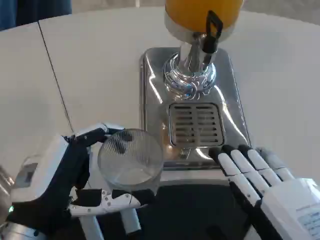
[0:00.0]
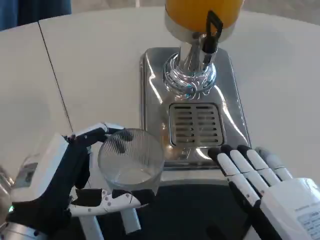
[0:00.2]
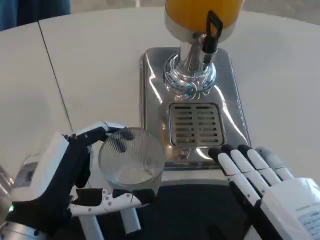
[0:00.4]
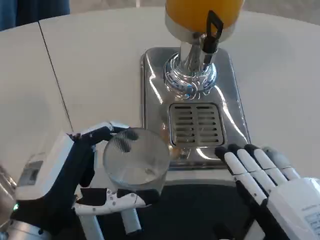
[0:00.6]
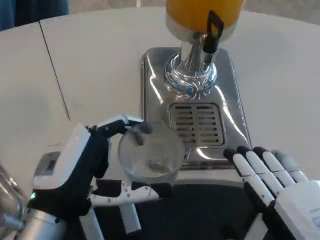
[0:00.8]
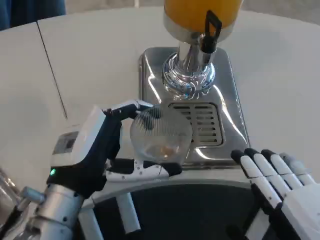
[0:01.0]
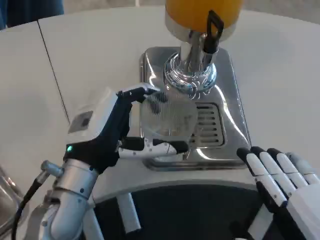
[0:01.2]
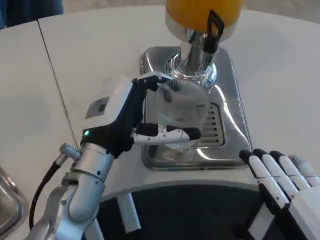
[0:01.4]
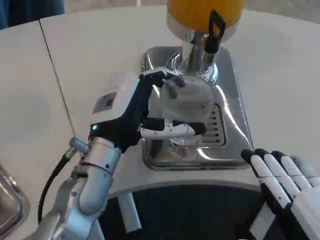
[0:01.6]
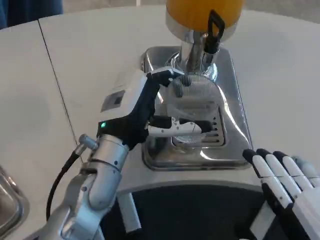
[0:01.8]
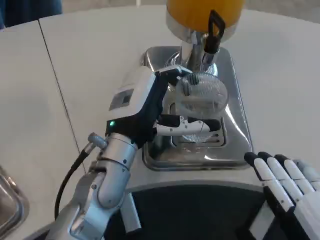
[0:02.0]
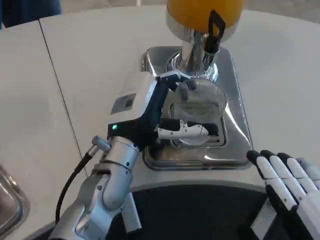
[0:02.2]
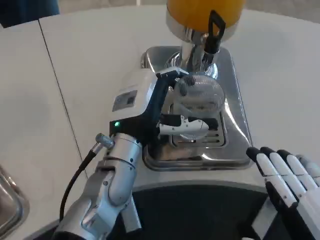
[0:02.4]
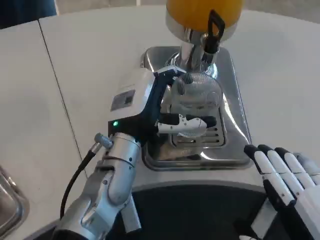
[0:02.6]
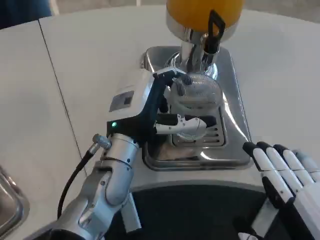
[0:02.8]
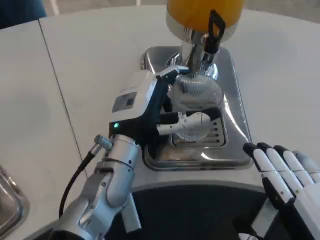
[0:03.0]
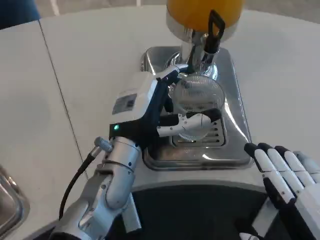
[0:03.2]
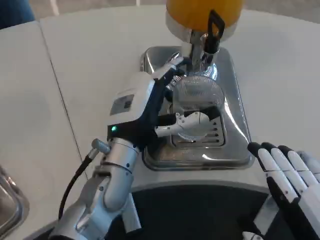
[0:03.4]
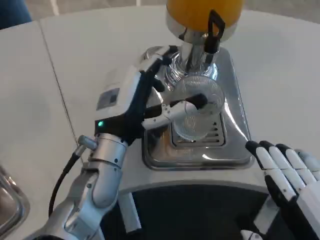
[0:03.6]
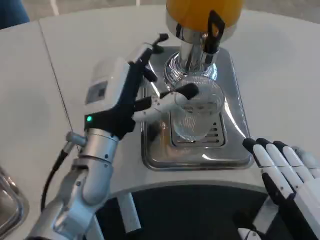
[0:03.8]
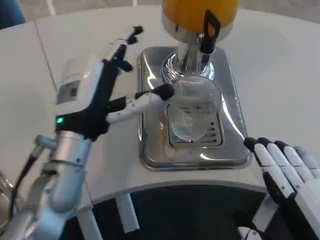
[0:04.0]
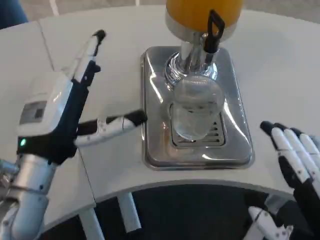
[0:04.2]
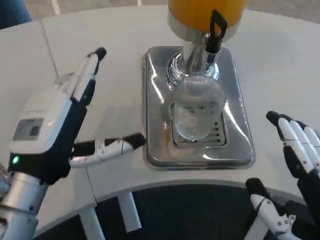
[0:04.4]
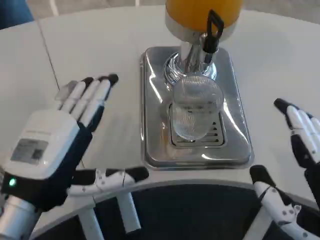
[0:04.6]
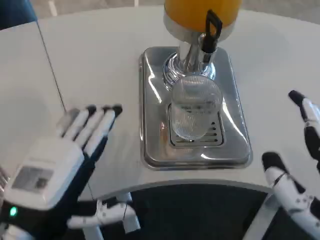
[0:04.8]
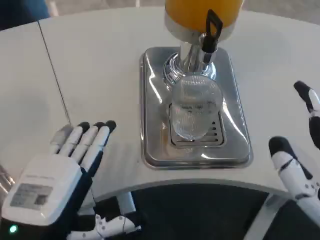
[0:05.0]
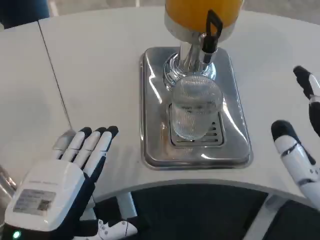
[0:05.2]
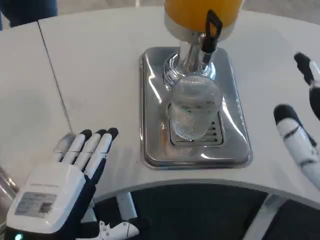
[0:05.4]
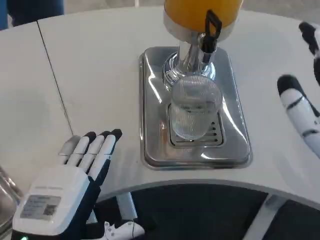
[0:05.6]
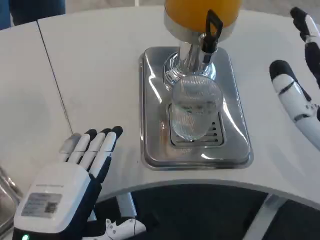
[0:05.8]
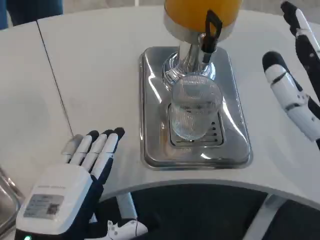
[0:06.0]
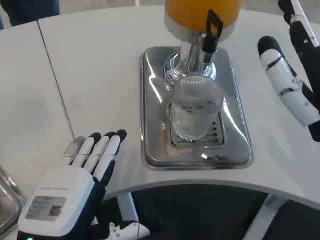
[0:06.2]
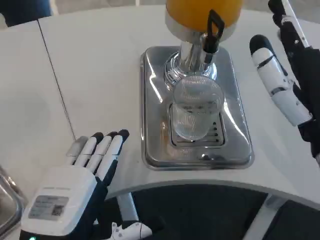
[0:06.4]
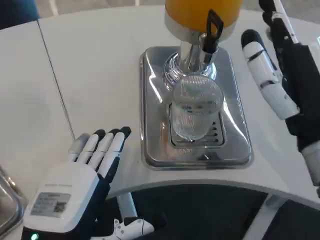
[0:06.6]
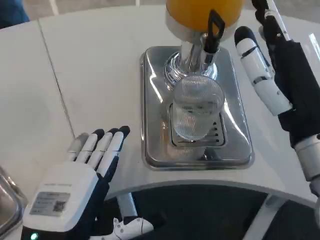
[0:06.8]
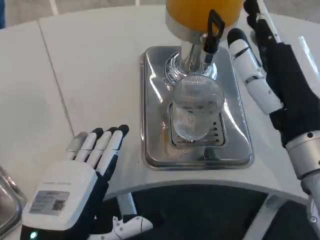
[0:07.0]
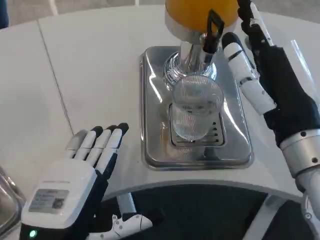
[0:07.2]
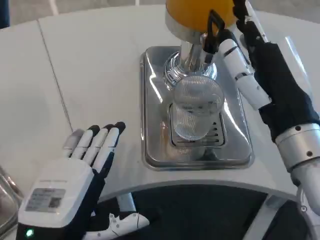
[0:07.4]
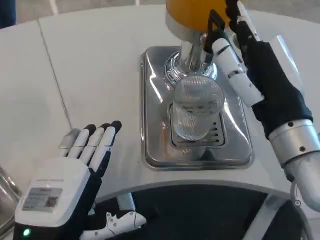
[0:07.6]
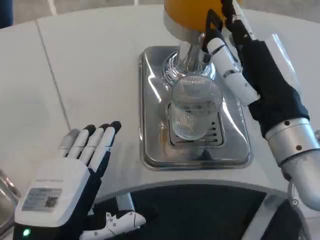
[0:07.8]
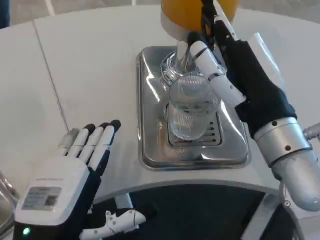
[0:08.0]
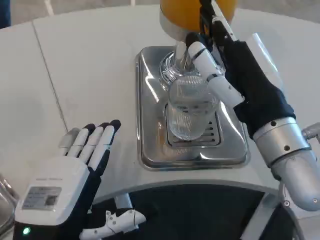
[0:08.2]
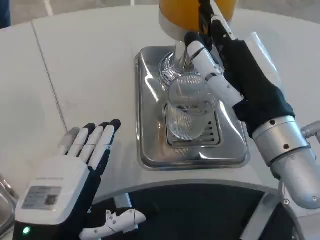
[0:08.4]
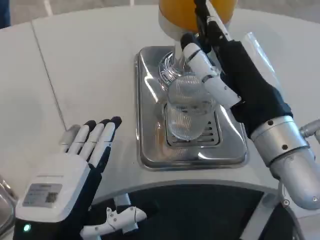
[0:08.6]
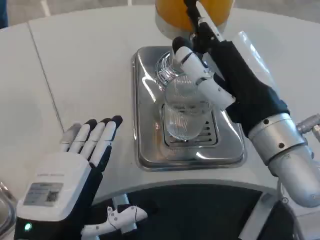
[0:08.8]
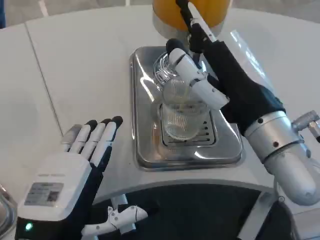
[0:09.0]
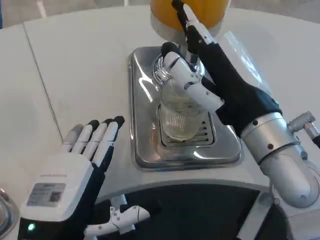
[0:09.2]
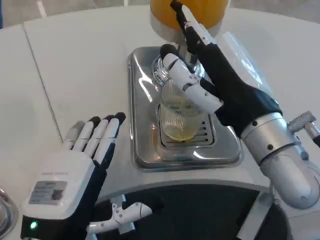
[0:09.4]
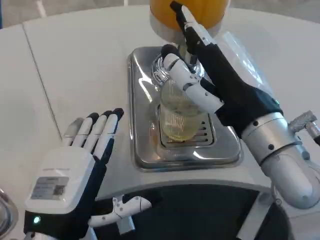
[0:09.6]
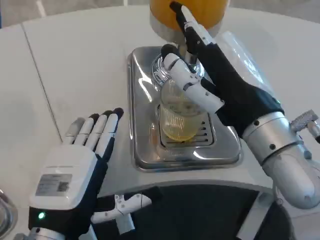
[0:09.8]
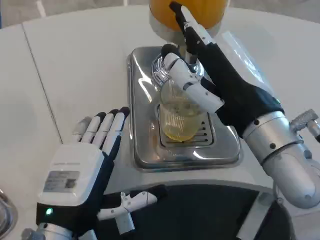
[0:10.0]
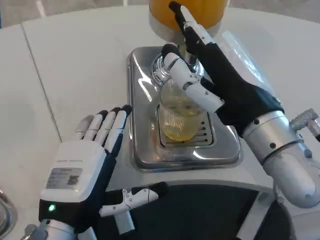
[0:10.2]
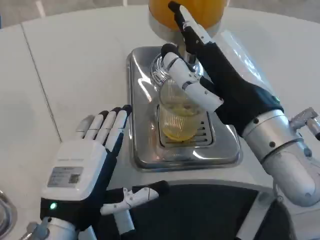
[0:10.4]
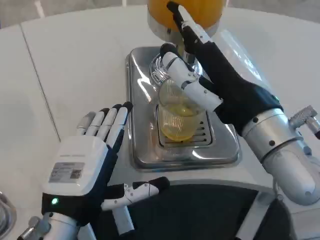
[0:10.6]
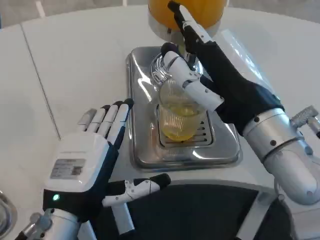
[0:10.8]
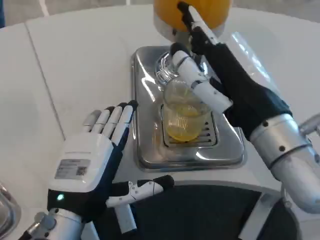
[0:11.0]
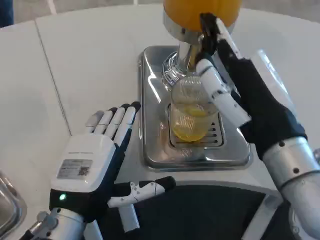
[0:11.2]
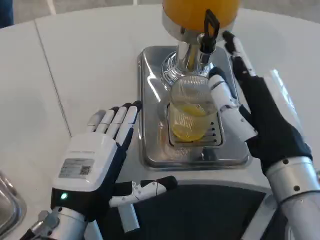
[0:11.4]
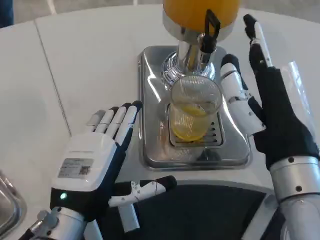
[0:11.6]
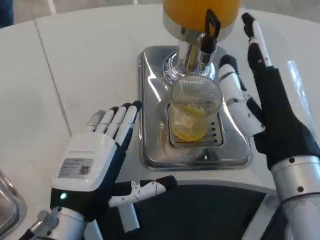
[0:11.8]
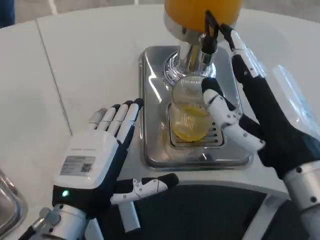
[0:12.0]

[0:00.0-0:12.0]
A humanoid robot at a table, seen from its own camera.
Task of the whole recording: Grasp the cup under the faucet to collect the drink, then remove the cup.
0:00.0 to 0:01.6: The left hand shifts some 15 cm forward and to the right.
0:01.6 to 0:03.0: The hands move only a little.
0:03.0 to 0:04.4: The left hand moves to the left and backward, some 15 cm.
0:04.4 to 0:06.0: The right hand moves forward and upward, about 10 cm. Meanwhile the left hand heads backward, covering approximately 10 cm.
0:06.0 to 0:07.6: The right hand travels forward by approximately 5 cm.
0:10.4 to 0:12.0: The right hand moves approximately 5 cm.

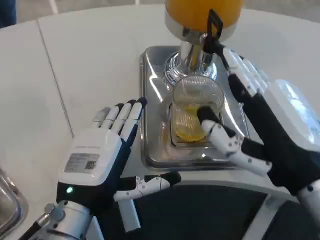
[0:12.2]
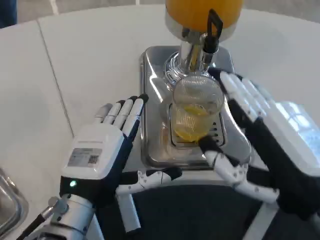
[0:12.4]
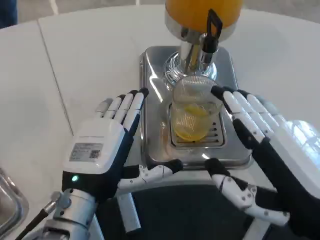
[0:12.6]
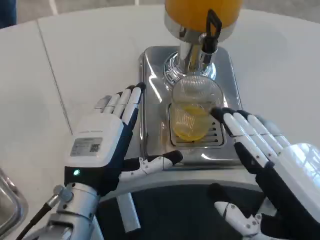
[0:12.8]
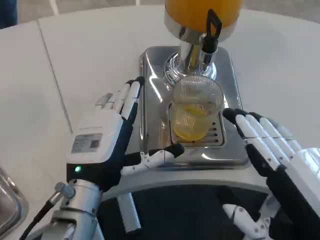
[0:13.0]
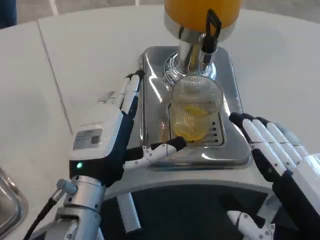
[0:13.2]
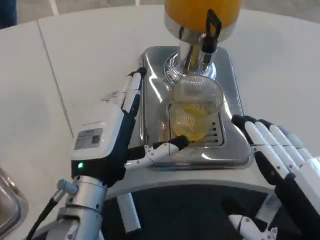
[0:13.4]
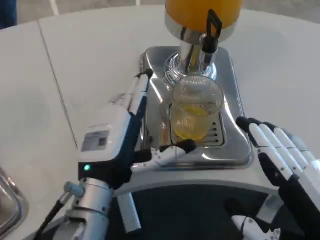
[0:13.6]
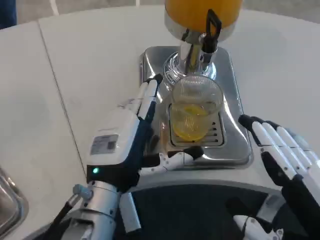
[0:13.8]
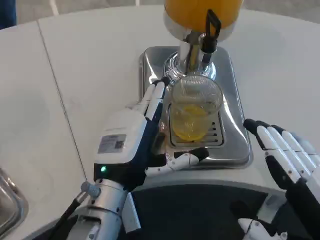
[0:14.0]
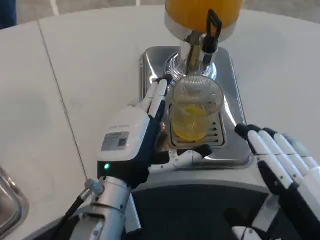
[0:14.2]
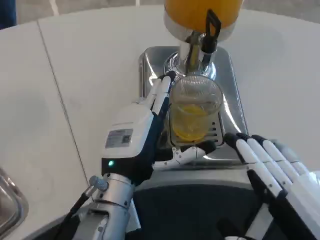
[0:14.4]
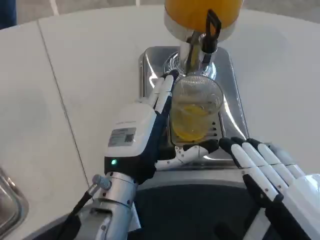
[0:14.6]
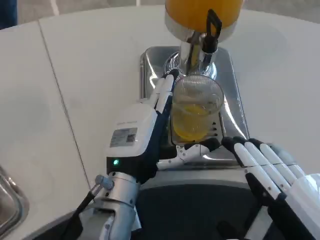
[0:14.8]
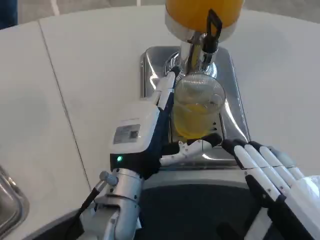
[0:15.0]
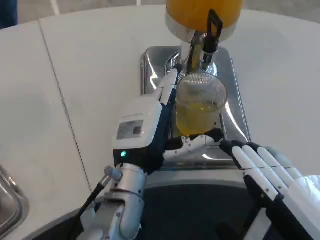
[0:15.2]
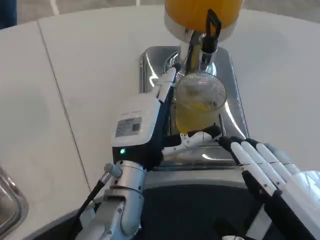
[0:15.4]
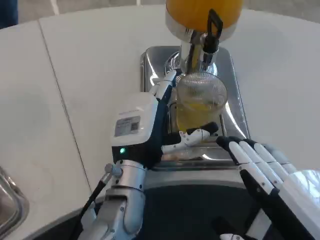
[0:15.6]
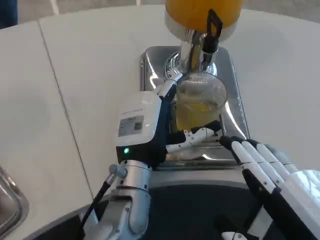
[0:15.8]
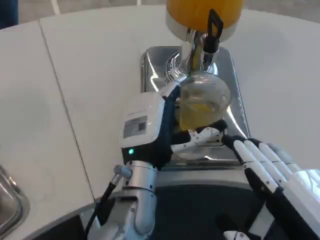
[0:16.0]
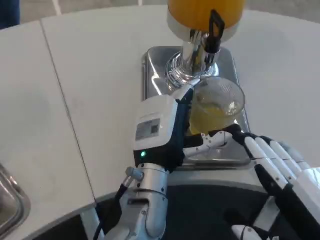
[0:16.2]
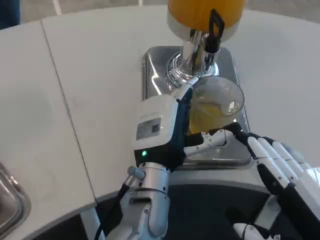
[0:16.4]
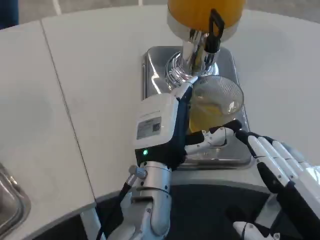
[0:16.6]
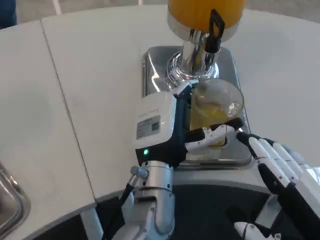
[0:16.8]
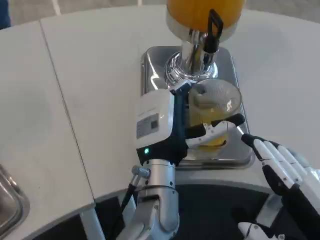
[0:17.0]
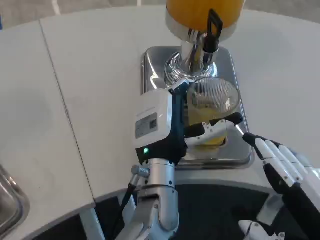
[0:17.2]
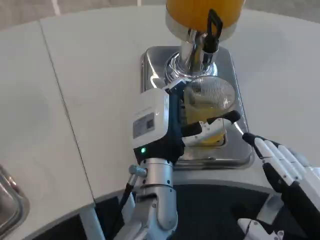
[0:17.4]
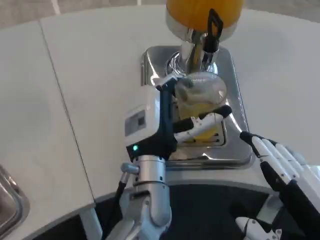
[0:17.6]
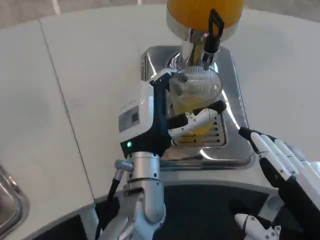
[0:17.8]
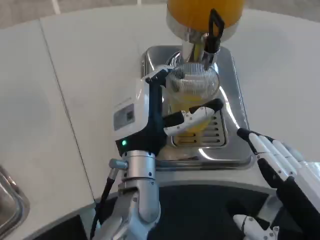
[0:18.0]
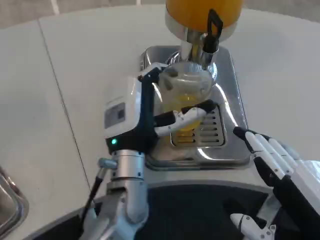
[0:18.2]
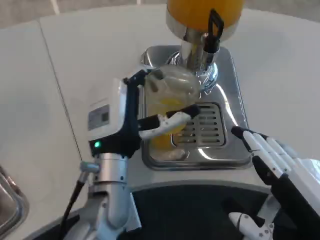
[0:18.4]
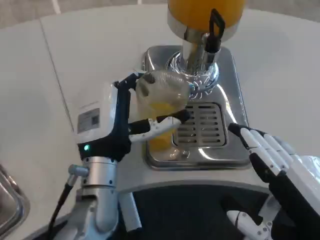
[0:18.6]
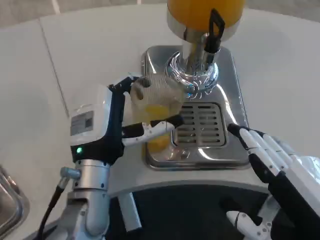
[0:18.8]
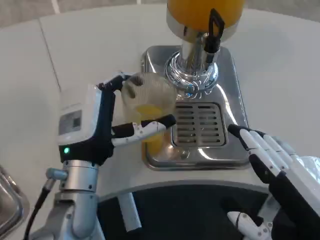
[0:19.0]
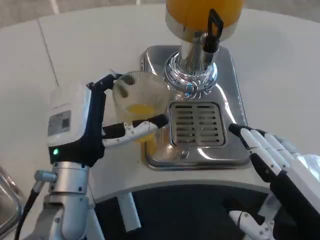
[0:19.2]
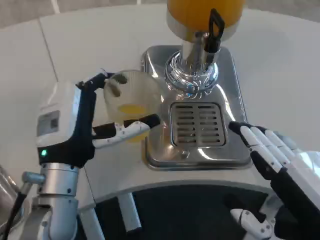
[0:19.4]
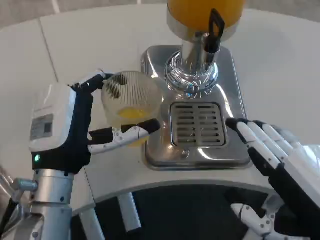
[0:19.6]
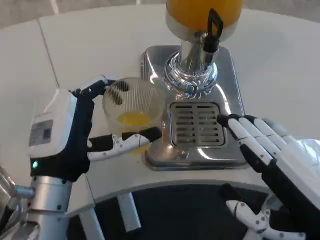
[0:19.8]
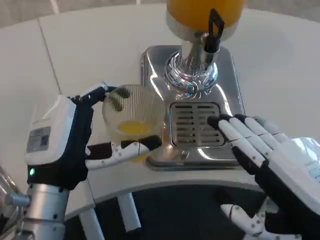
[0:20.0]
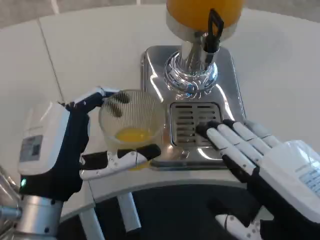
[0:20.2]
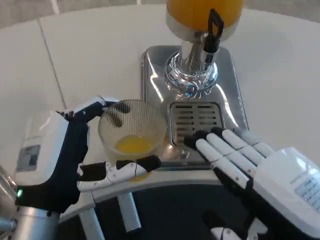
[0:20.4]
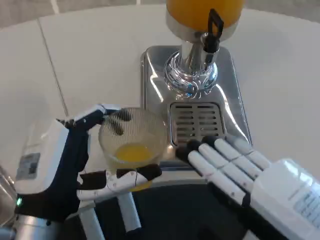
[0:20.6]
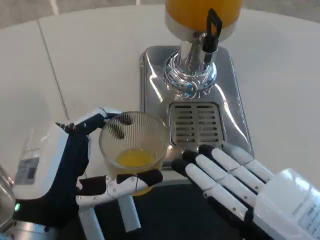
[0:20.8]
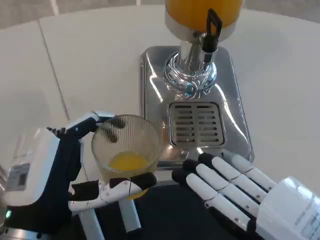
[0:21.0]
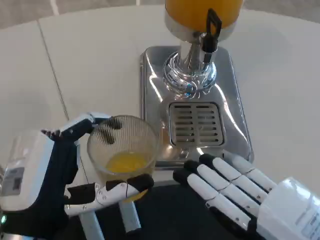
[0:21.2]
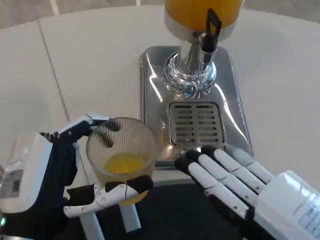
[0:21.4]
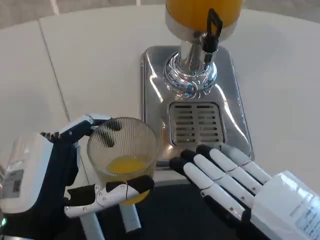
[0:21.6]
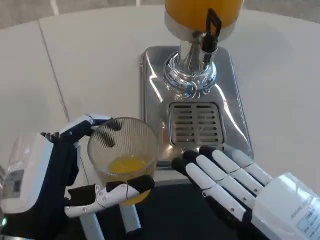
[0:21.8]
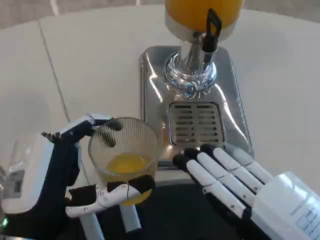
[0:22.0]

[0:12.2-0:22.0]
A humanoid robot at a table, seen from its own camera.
Task of the whole recording: Grasp the cup under the faucet to collect the drink, then remove the cup.
0:12.2 to 0:13.6: The right hand moves backward, some 10 cm.
0:13.6 to 0:15.0: The left hand ends up roughly 5 cm from where it was.
0:16.4 to 0:17.8: There are only small adjustments of the hands.
0:17.8 to 0:19.2: The left hand heads to the left, covering some 10 cm.
0:19.2 to 0:20.6: The left hand goes roughly 10 cm backward.
